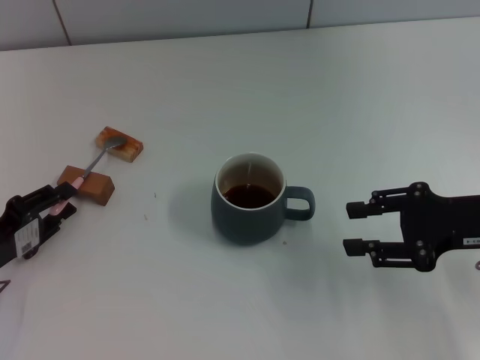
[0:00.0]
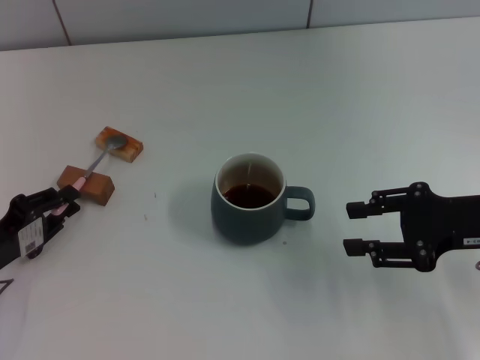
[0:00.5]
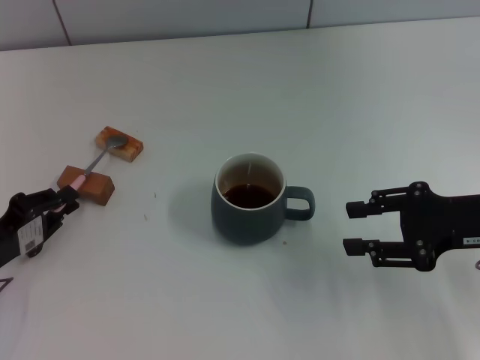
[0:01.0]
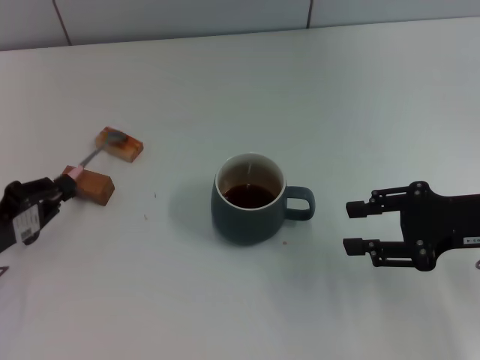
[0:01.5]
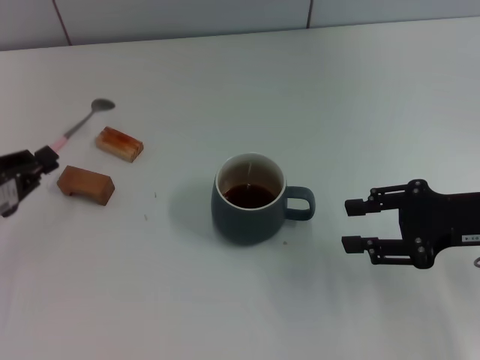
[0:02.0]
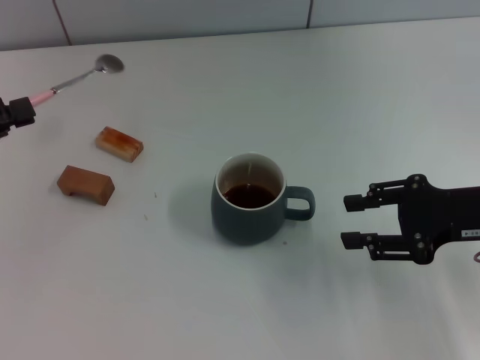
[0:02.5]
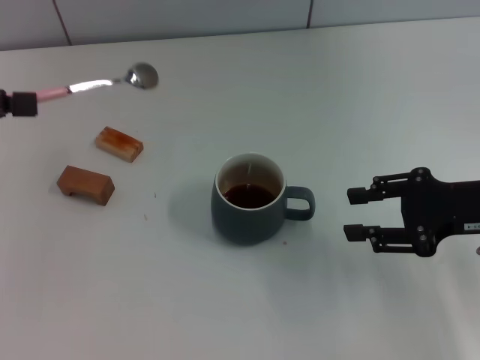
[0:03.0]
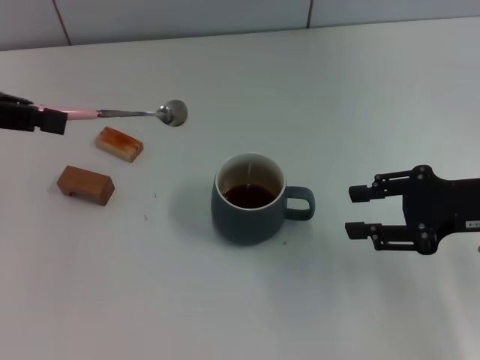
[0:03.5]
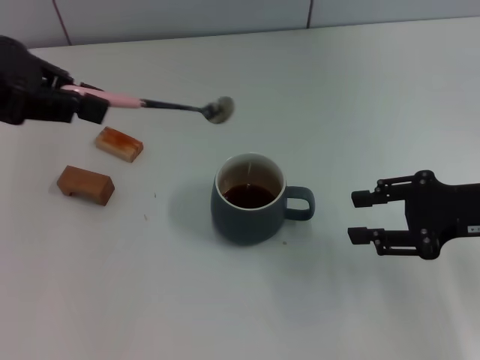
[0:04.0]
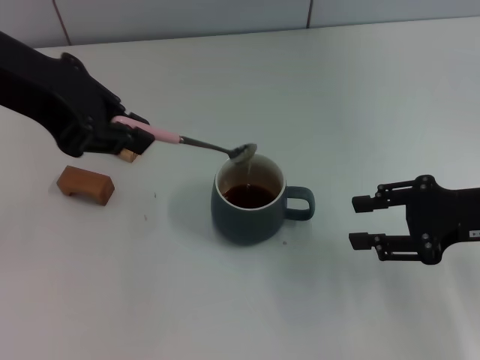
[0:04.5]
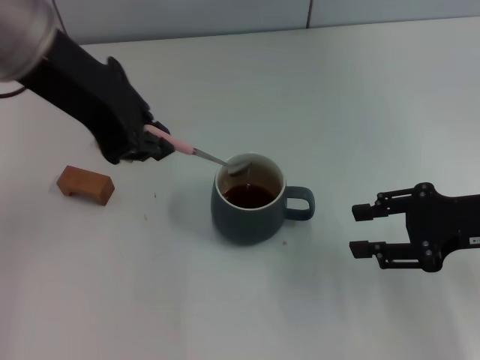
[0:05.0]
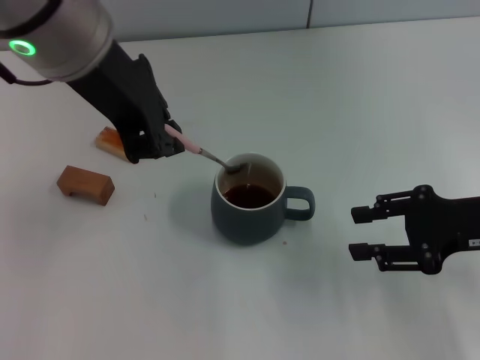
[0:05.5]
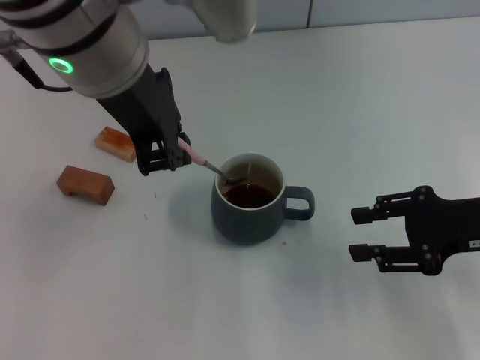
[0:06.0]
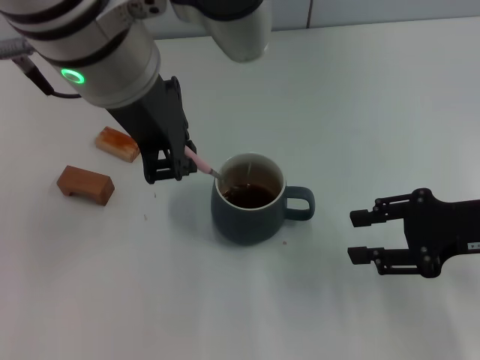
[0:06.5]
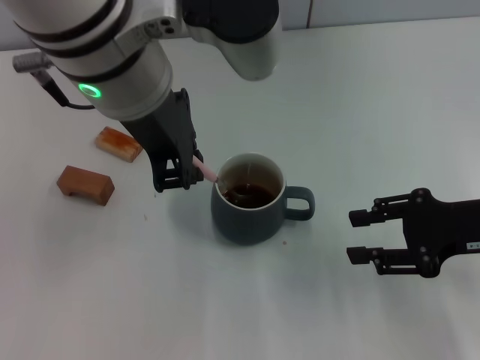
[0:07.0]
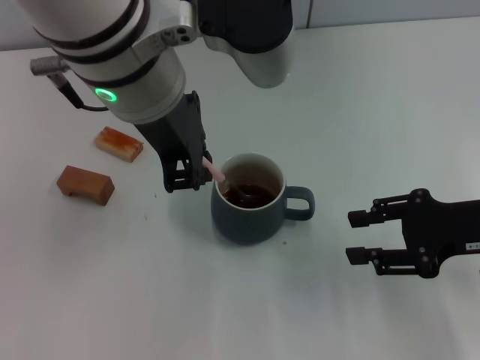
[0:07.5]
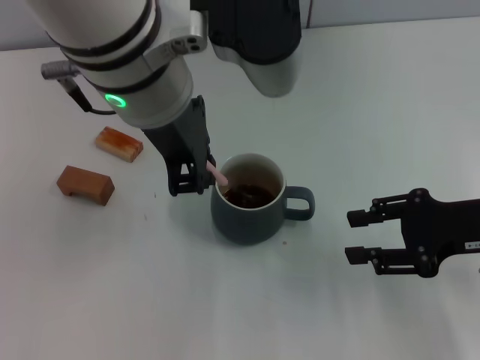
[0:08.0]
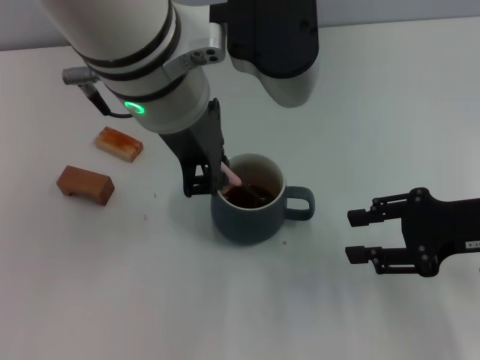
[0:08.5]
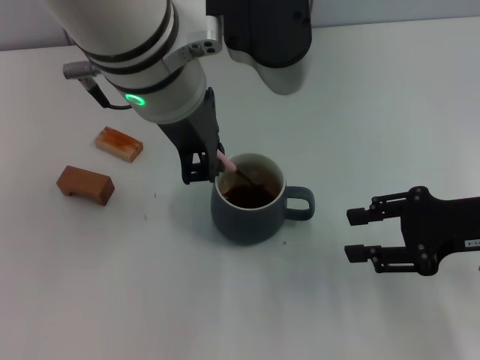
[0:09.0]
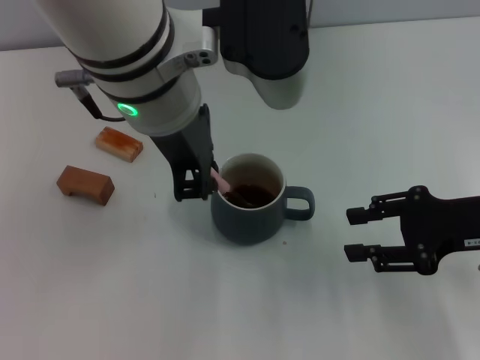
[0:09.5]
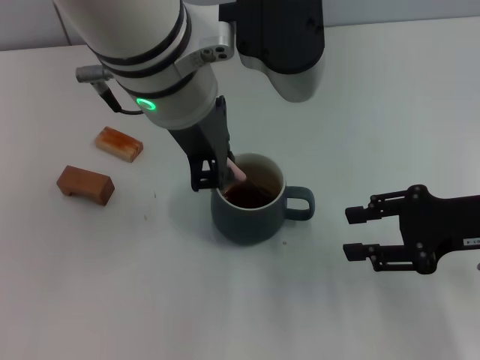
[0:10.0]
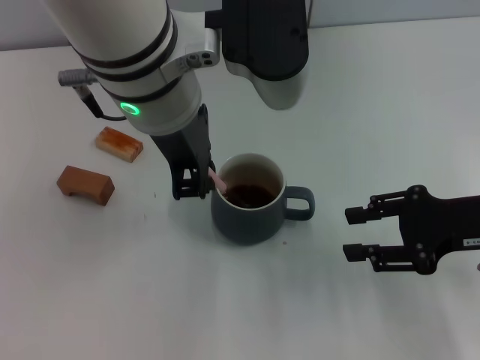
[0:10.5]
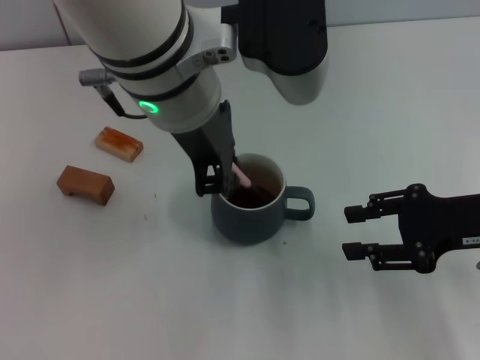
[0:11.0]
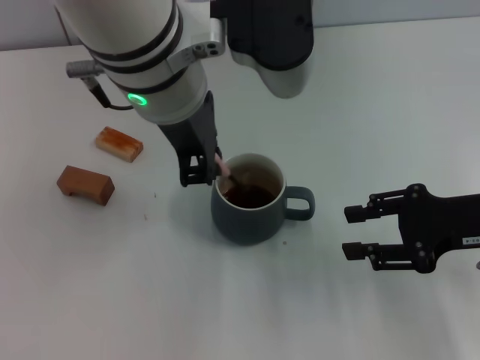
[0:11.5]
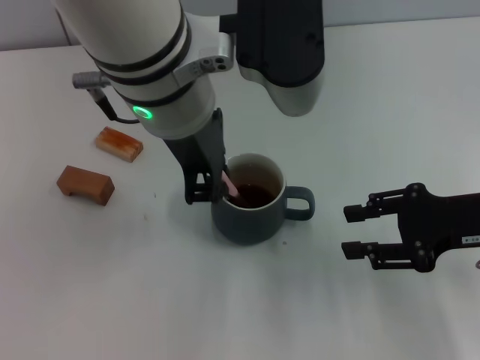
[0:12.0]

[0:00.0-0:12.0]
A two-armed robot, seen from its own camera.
Task of the whole recording: Move the grey cup to the center, lift the pink spoon, stir it three times in the cup, and put the spoon into the cup.
0:00.0 to 0:02.0: The left gripper closes its fingers.
0:02.0 to 0:04.0: The left gripper goes about 25 cm upward.
0:04.0 to 0:06.0: The left gripper shifts about 15 cm to the right.
0:06.0 to 0:10.0: There are only small adjustments of the grippers.
0:10.0 to 0:12.0: Neither gripper changes place.

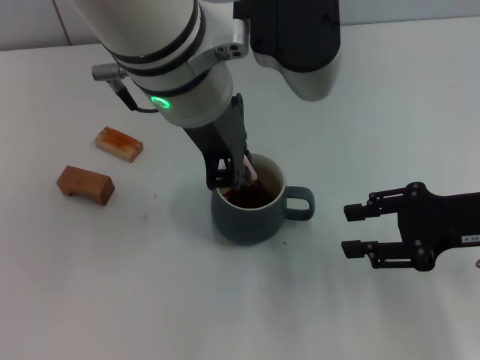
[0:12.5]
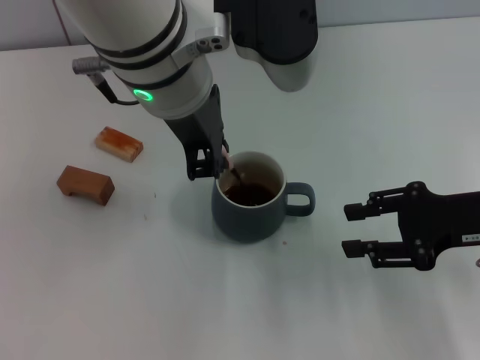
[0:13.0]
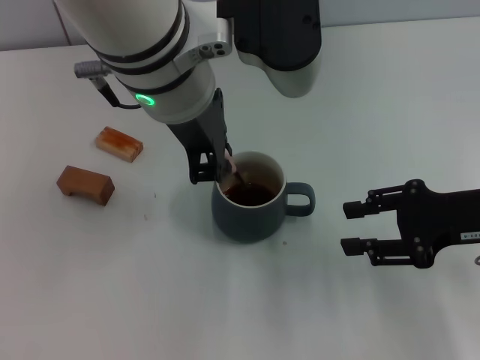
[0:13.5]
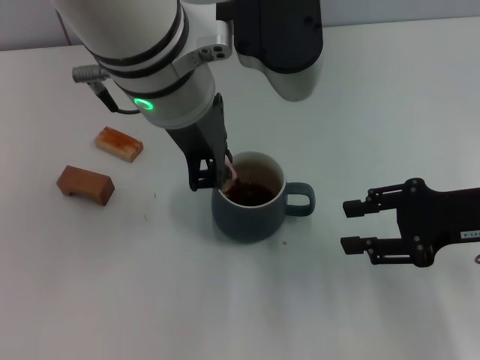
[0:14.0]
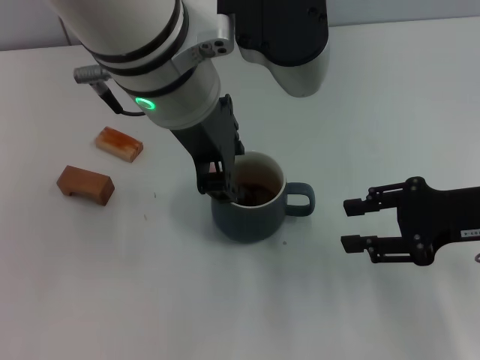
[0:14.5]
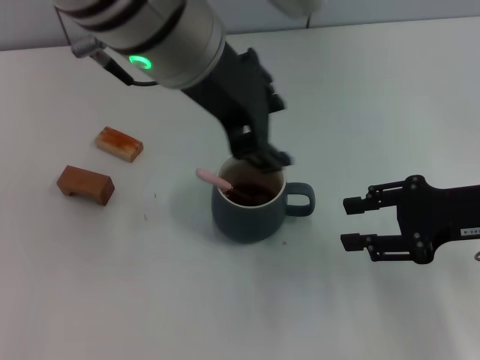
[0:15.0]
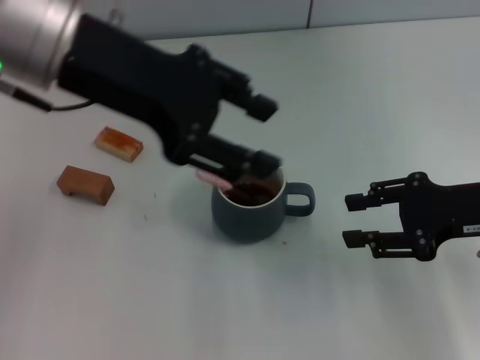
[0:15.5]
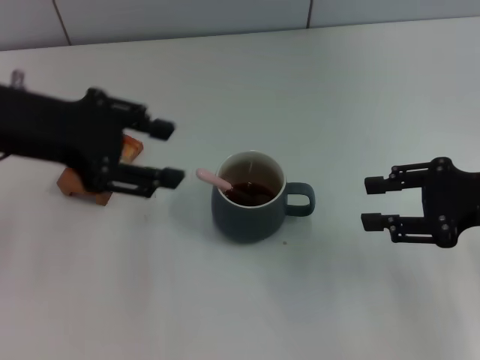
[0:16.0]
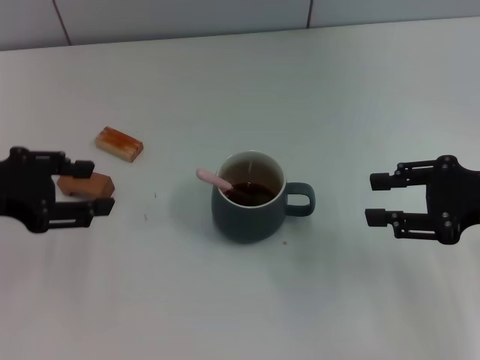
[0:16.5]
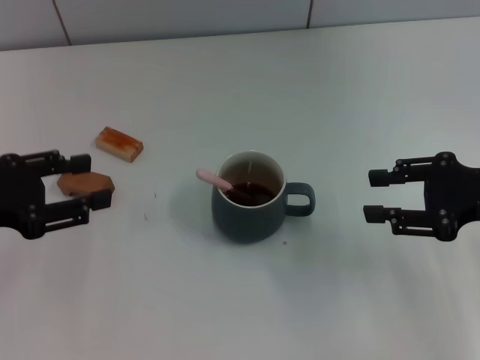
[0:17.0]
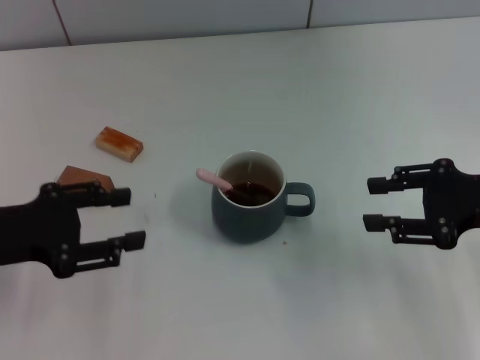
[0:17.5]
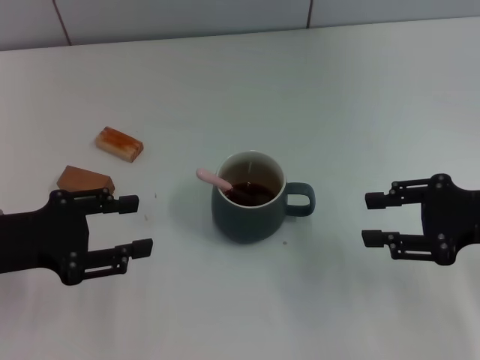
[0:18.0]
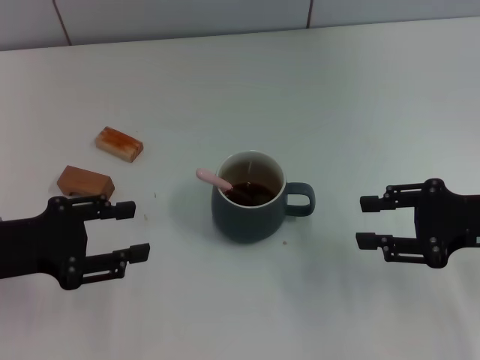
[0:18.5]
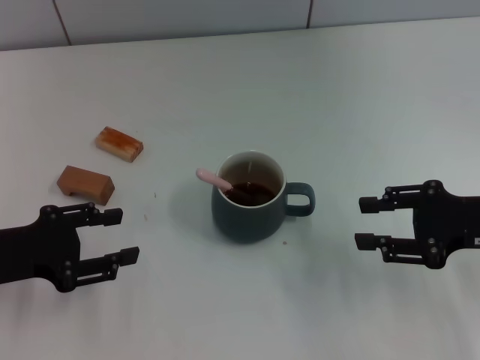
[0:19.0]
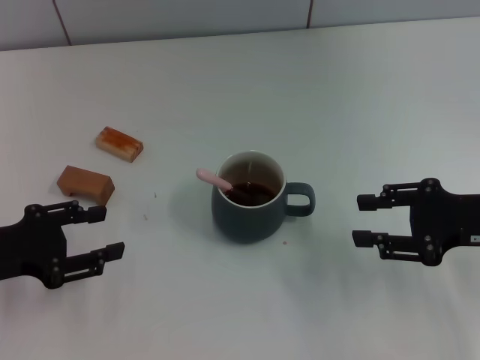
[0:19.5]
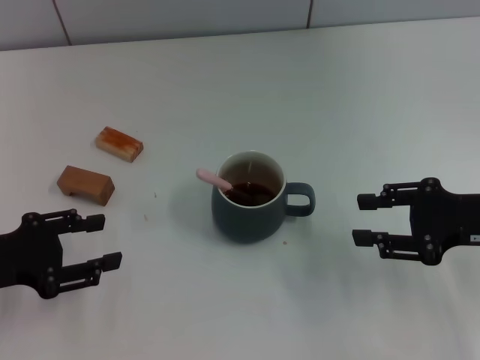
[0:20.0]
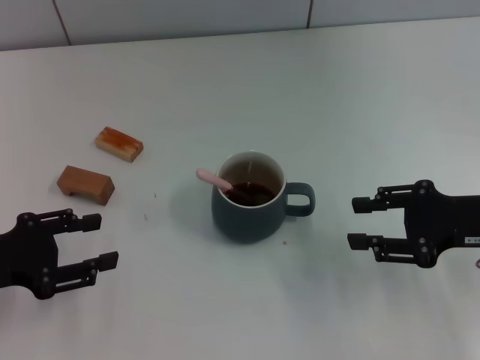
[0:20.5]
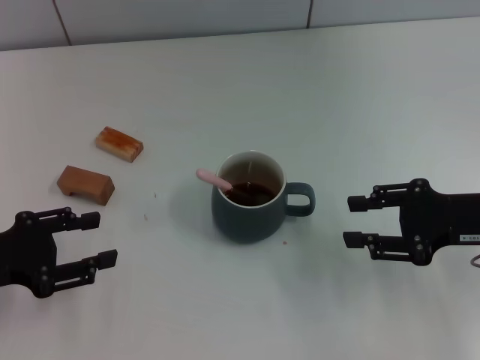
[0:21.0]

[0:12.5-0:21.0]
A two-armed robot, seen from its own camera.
Task of the whole recording: Move the grey cup to the center, lift the pink spoon, stir it three times in the cup, and put the spoon into the cup.
Step, 0:12.5 to 0:14.5: Stir the coffee in the cup with the left gripper.
0:12.5 to 0:14.5: The left gripper opens up.
0:14.5 to 0:16.5: The left gripper goes some 25 cm to the left, and opens up.
0:16.5 to 0:19.0: The left gripper is displaced downward by roughly 10 cm.
0:19.0 to 0:21.0: There are only small adjustments of the grippers.
